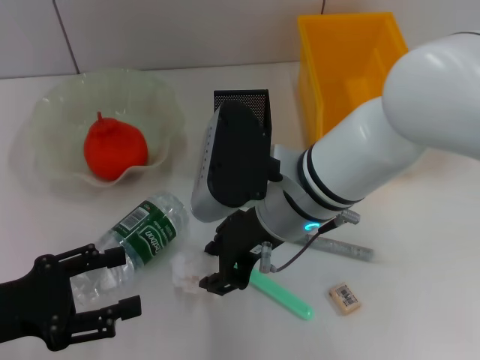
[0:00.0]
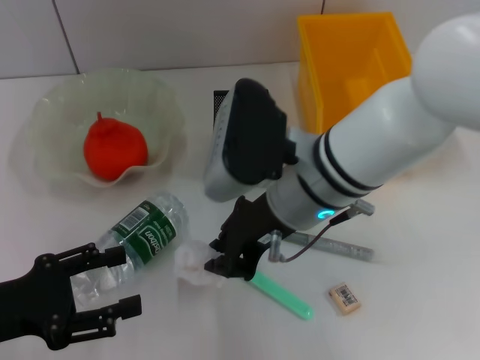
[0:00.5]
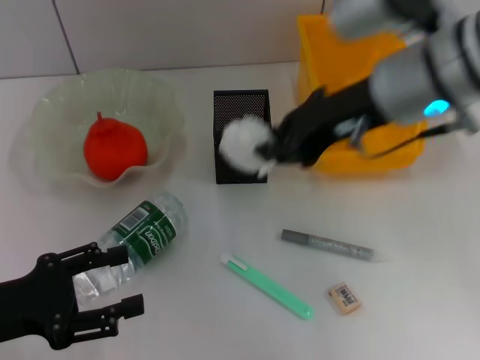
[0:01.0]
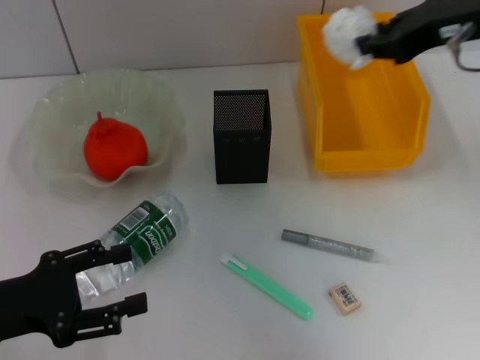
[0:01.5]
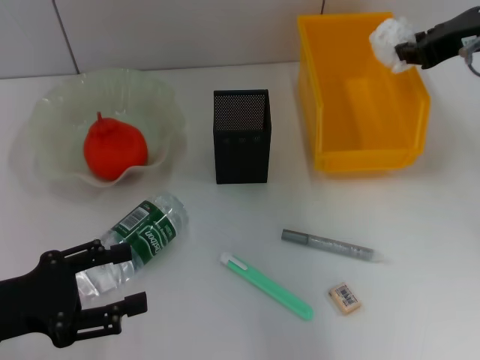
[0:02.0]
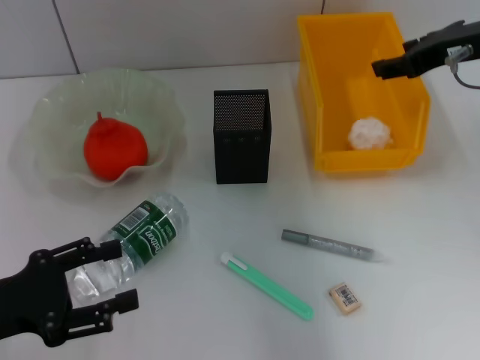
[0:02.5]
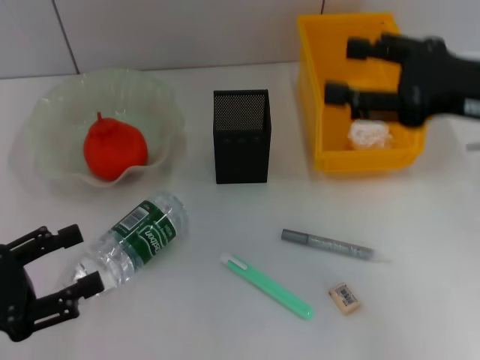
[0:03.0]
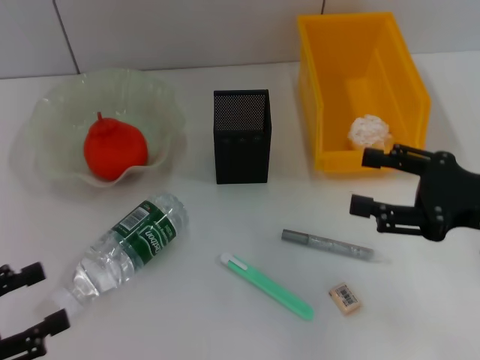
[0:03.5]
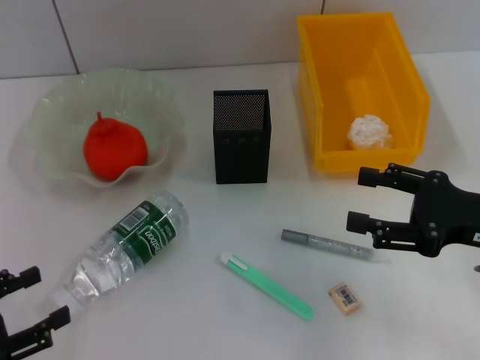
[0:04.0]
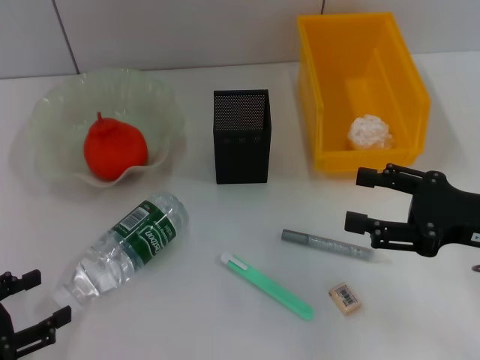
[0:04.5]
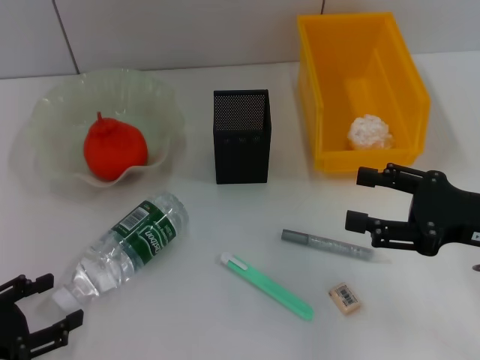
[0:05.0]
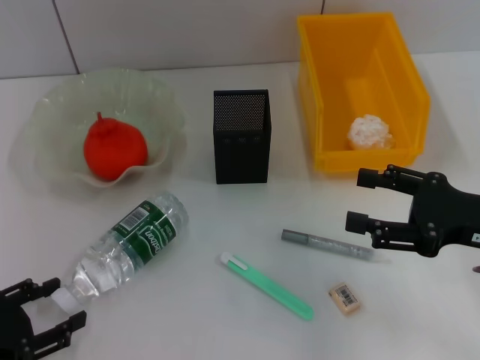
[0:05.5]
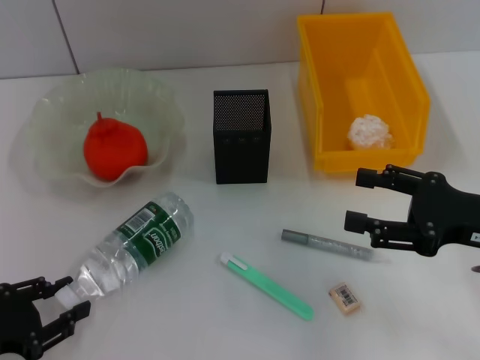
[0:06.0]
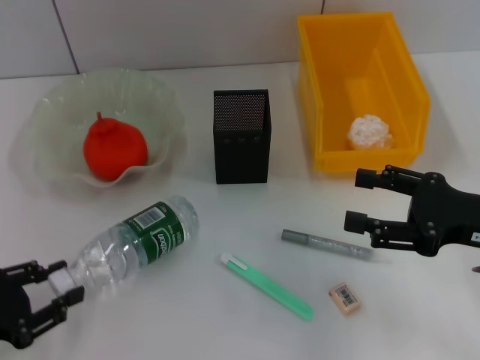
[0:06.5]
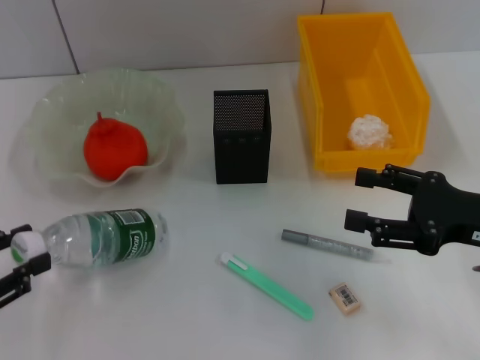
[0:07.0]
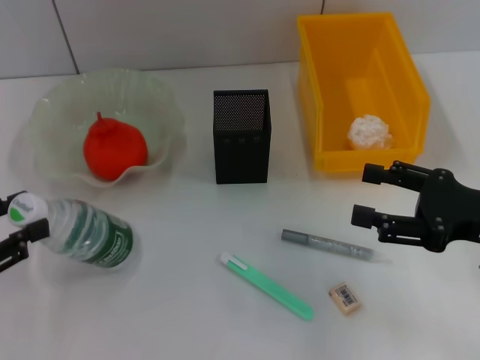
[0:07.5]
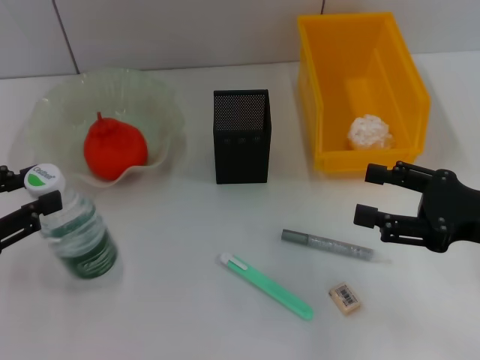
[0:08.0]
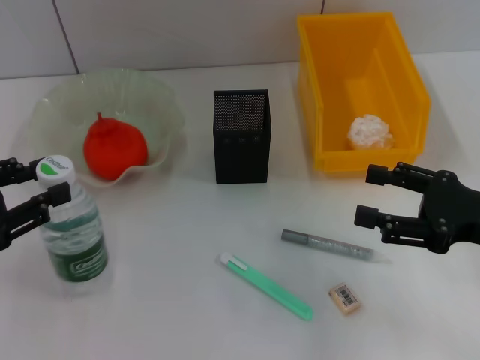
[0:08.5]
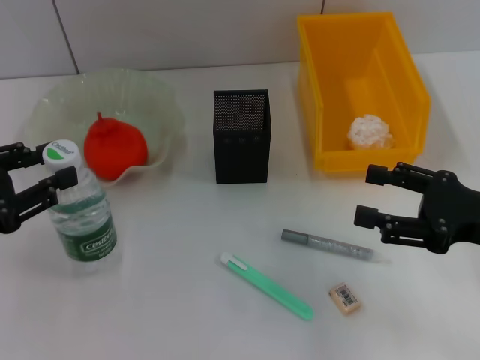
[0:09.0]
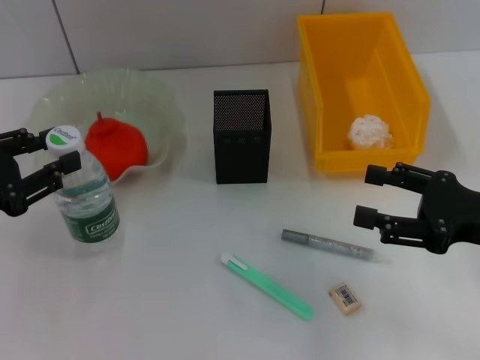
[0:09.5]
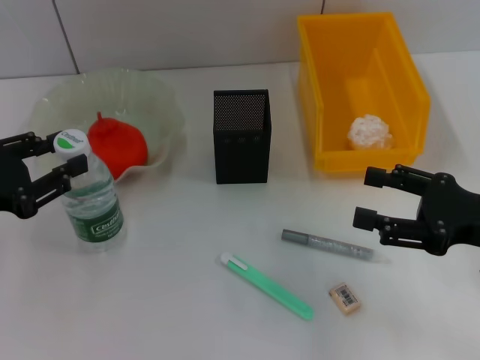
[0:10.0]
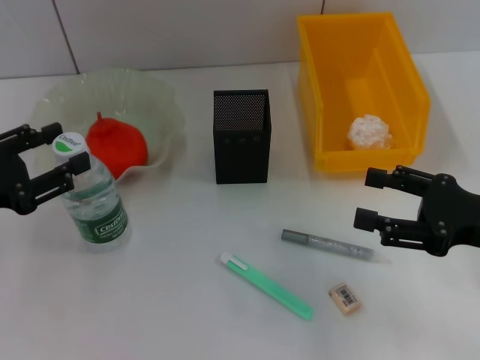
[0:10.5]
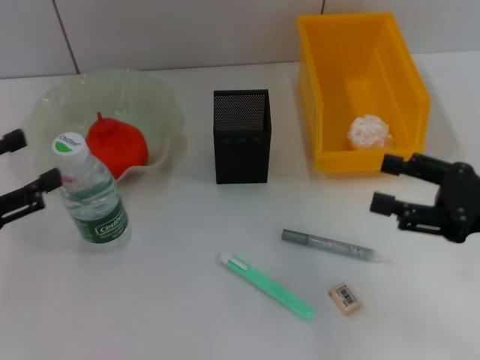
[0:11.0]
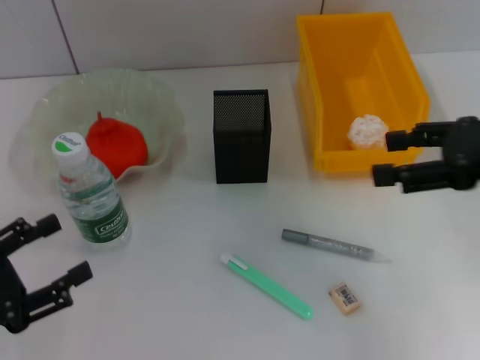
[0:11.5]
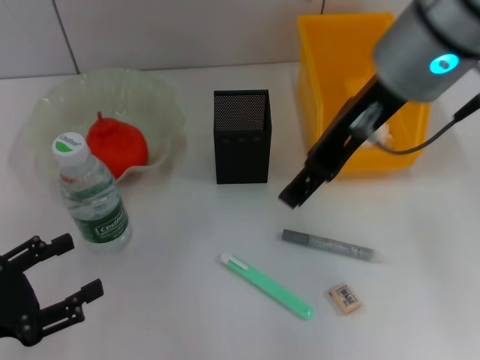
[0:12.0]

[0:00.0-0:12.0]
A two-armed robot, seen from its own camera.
Step, 0.5 to 2.0 s: Place the paper ball into the trash can with the right hand.
Step, 3.0 to 6.0 s: Grab the water bottle with the left hand.
Step, 6.5 to 10.5 s: Place the water bottle on the table with the left hand.
0.0 to 2.0 s: The right gripper heads to the right and upward, covering some 25 cm, and closes.
2.0 to 4.0 s: The left gripper goes about 5 cm to the left and backward. The right gripper shifts about 20 cm backward and downward, and opens its fingers.
4.0 to 6.0 s: The left gripper closes up.
6.0 to 8.0 s: The left gripper moves upward, about 10 cm, and closes.
8.0 to 10.0 s: The grippers stay close to where they were, moving slightly.
10.0 to 12.0 s: The left gripper travels backward and downward by some 10 cm, and opens its fingers. The right gripper travels upward, to the left and forward by some 25 cm.

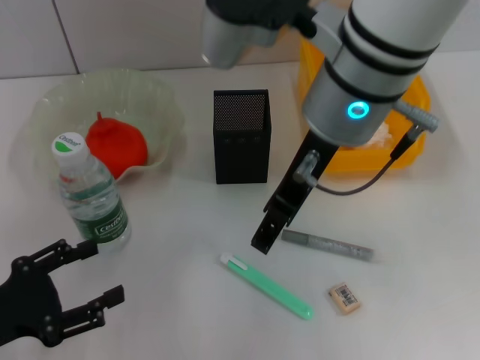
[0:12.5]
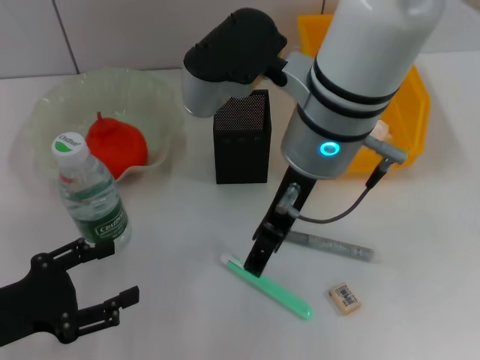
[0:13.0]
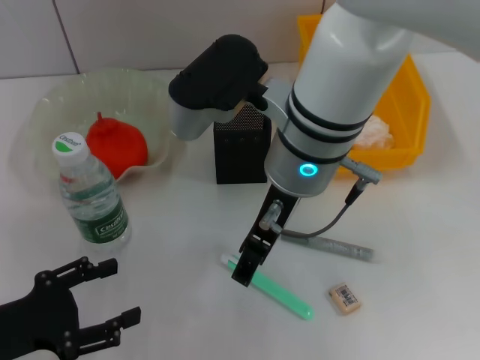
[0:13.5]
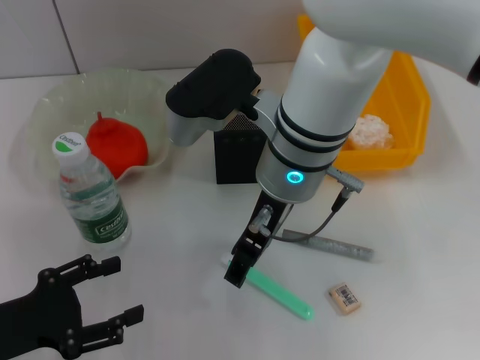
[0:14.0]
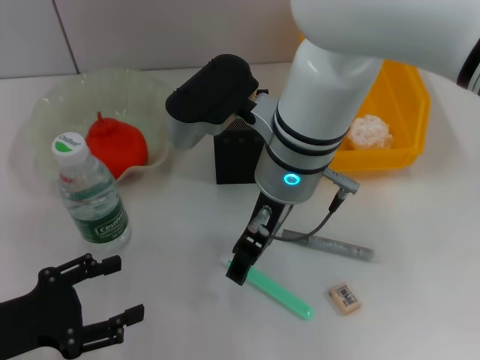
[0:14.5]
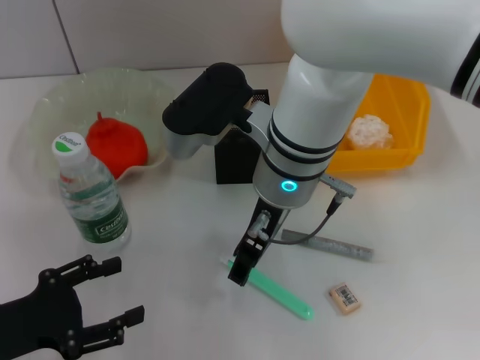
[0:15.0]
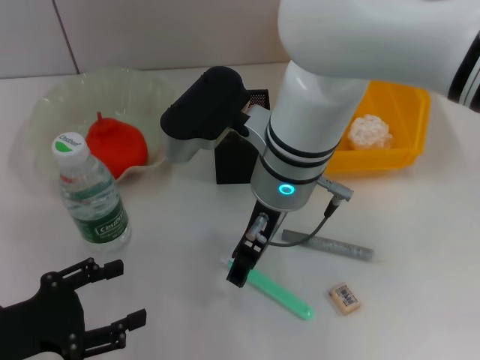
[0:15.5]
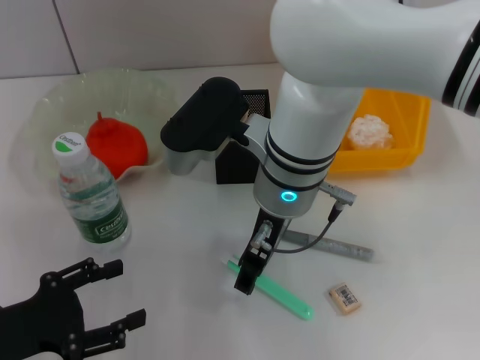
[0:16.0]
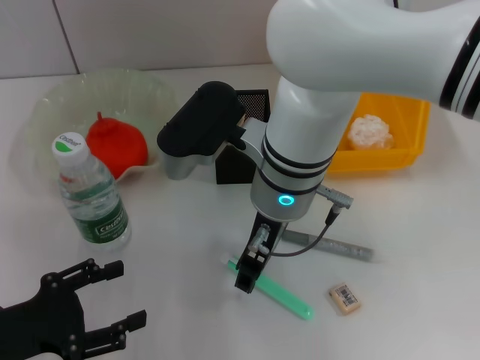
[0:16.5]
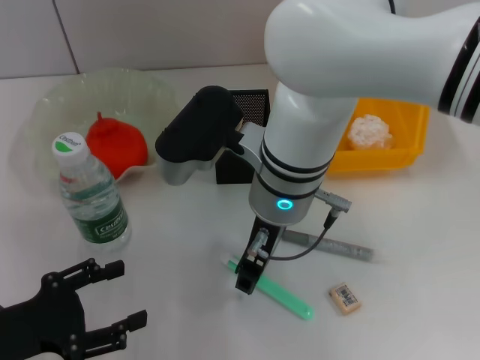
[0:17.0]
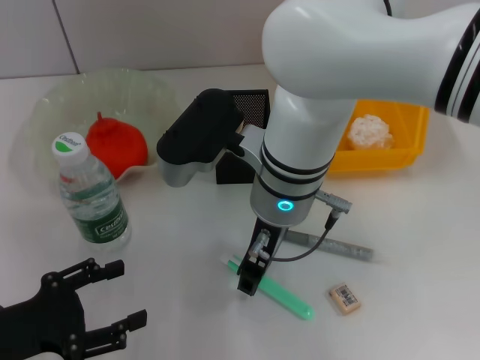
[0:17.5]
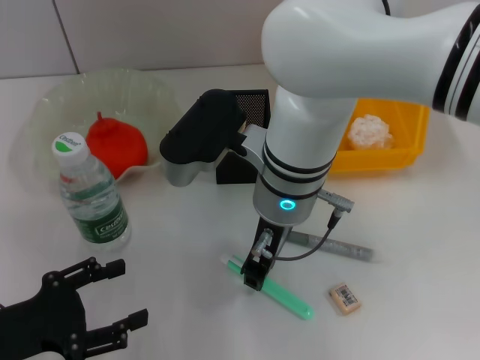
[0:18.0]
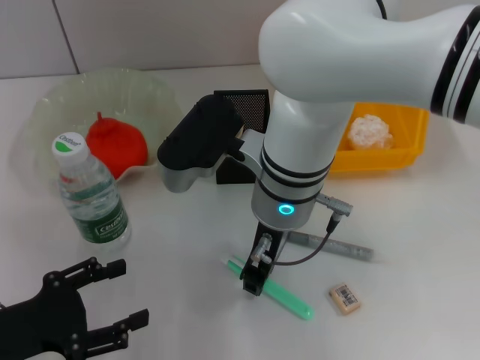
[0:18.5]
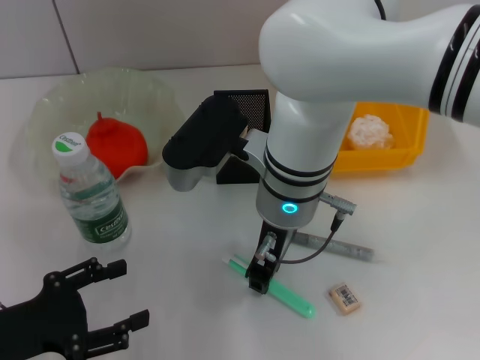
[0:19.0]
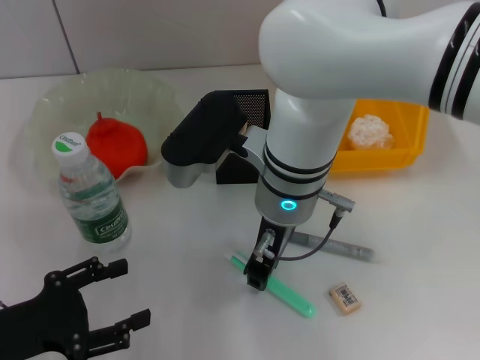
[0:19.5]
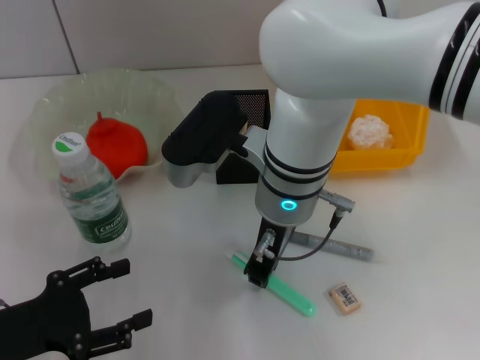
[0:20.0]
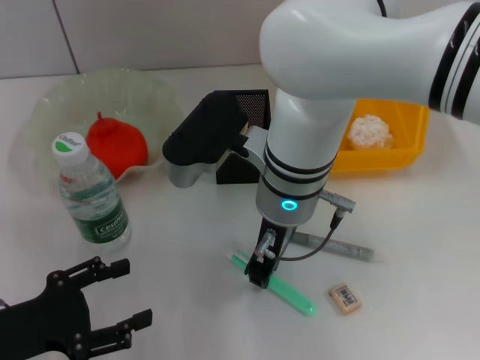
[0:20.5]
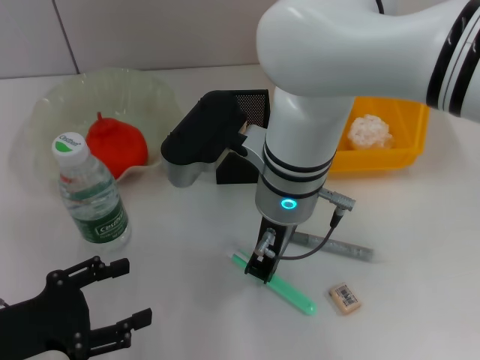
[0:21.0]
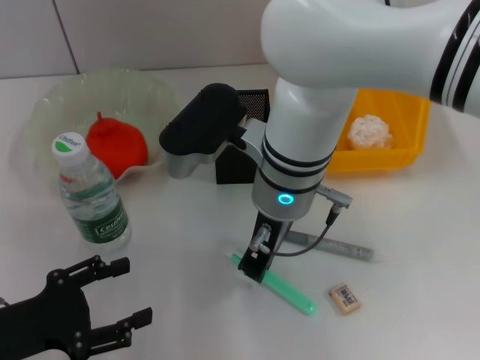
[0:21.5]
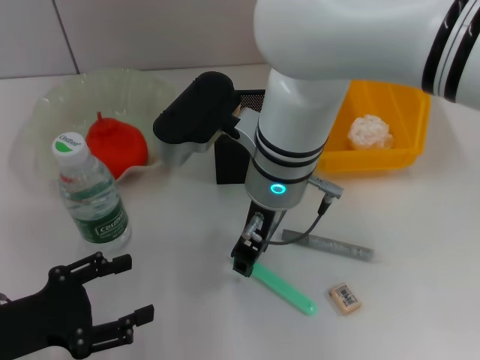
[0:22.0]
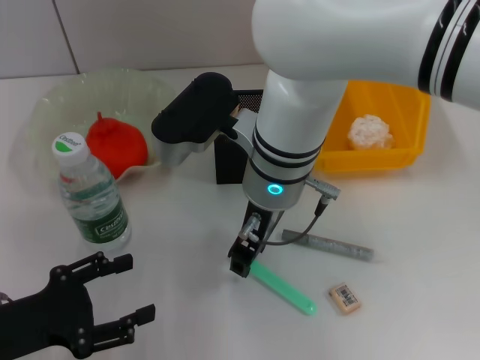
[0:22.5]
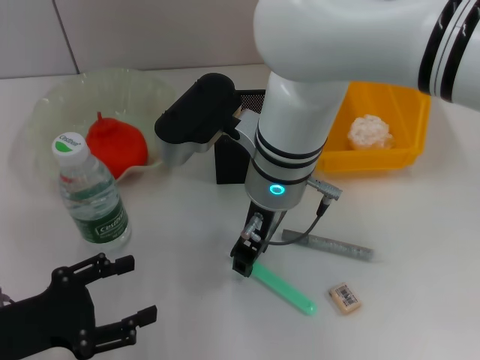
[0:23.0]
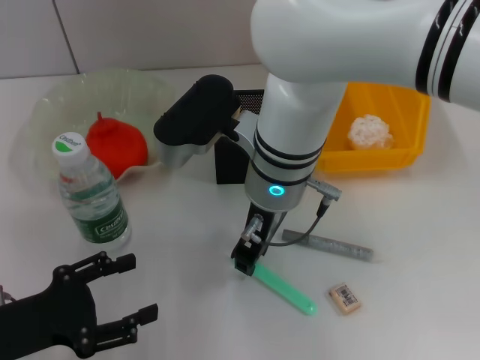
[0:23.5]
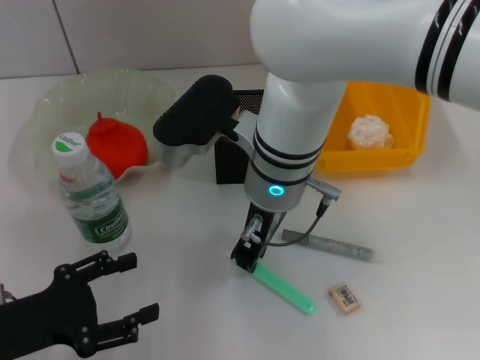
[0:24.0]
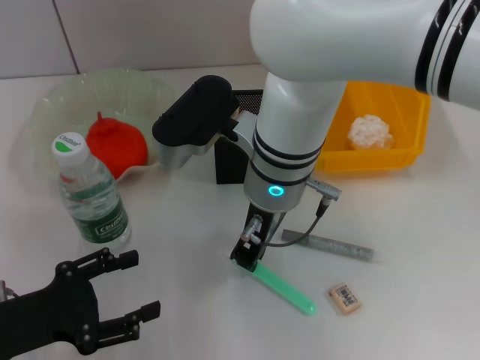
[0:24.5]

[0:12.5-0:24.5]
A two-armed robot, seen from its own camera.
12.5 to 14.5 s: The right gripper is displaced downward by some 10 cm.
14.5 to 16.5 s: The grippers move only a little.
16.5 to 18.5 s: The right gripper closes its fingers.
18.5 to 20.5 s: Both grippers stay put.
20.5 to 22.5 s: The grippers move only a little.
22.5 to 24.5 s: Both grippers stay put.

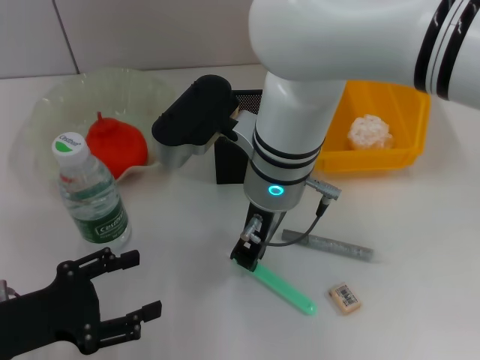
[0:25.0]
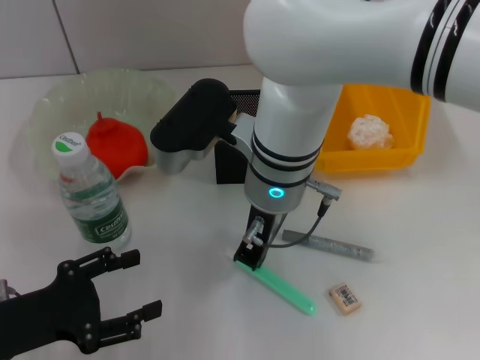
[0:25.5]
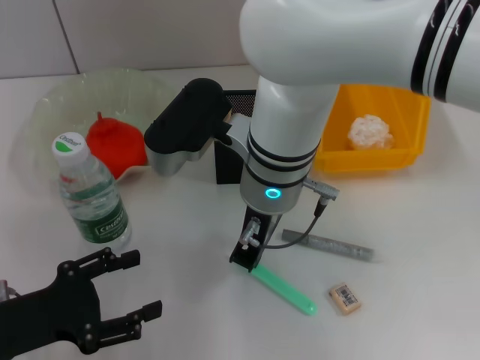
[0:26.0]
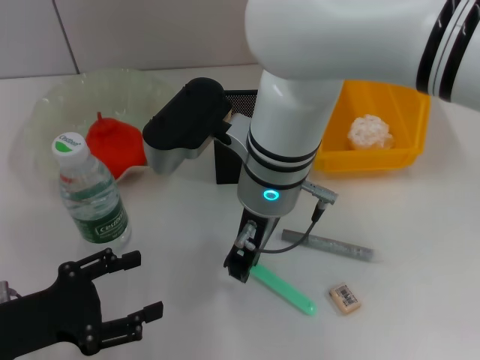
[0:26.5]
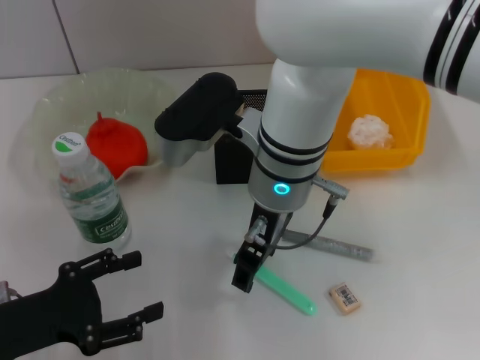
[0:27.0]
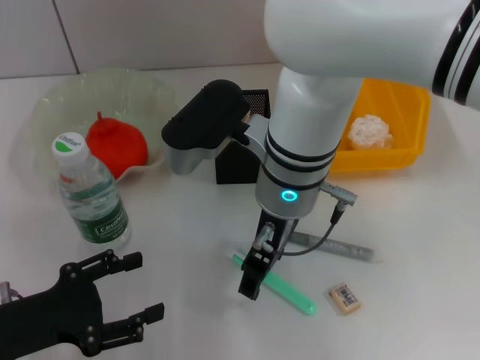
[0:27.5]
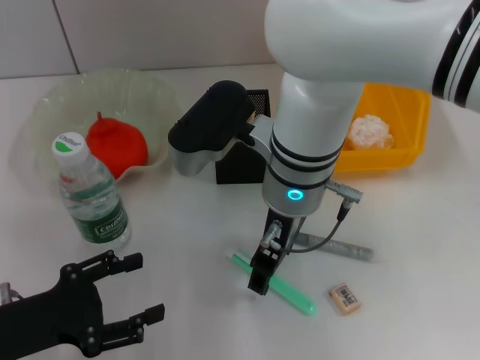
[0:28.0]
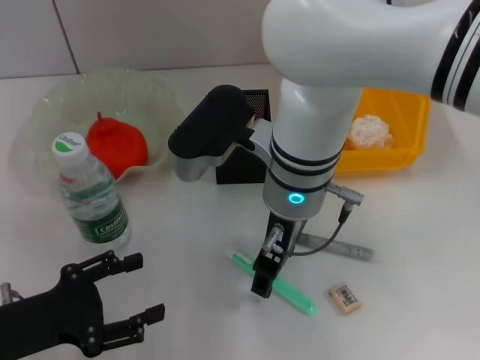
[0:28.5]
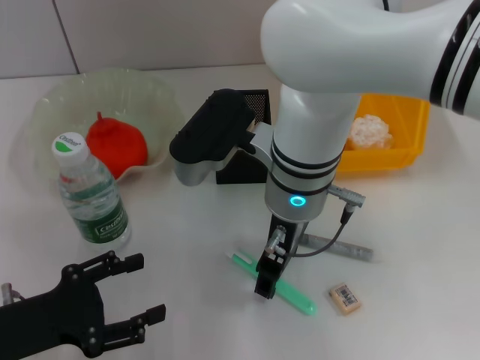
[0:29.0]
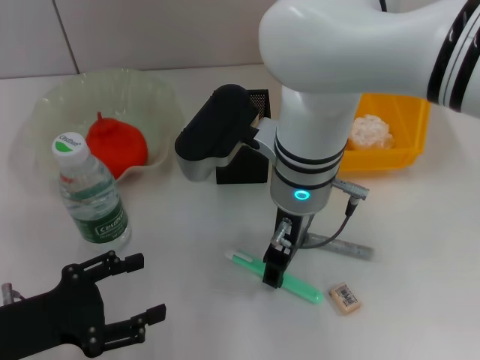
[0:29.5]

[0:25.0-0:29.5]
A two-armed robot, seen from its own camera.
25.0 to 27.0 s: The right gripper opens its fingers.
27.0 to 29.5 s: The grippers stay close to where they were, moving slightly.
